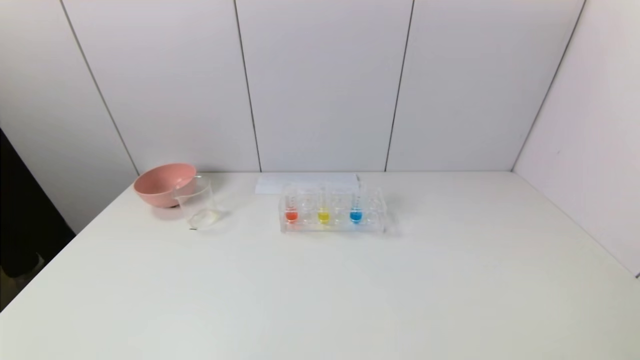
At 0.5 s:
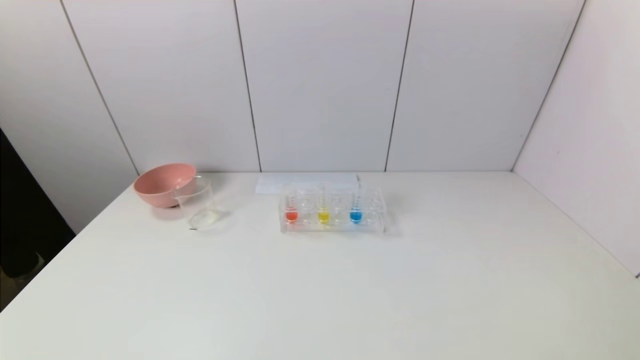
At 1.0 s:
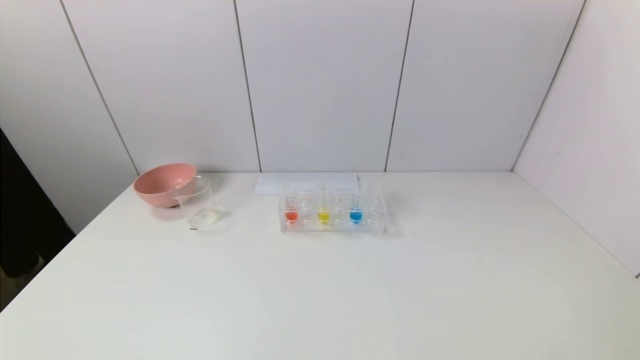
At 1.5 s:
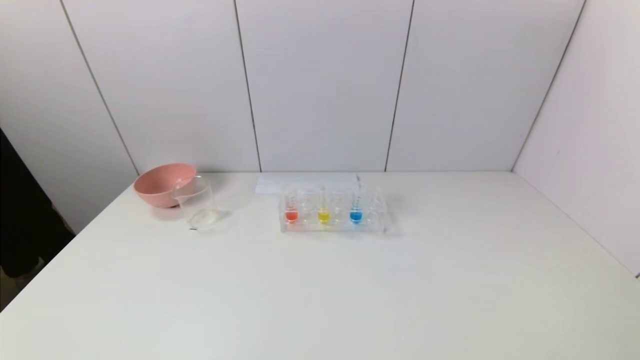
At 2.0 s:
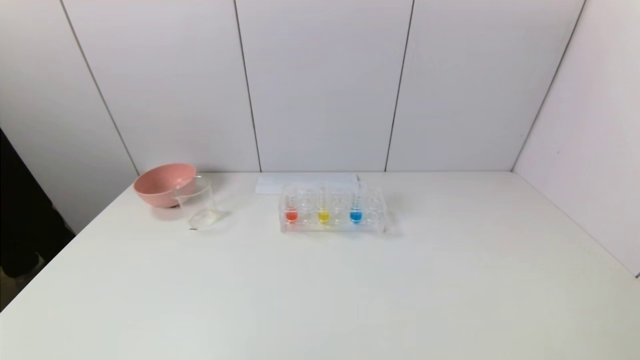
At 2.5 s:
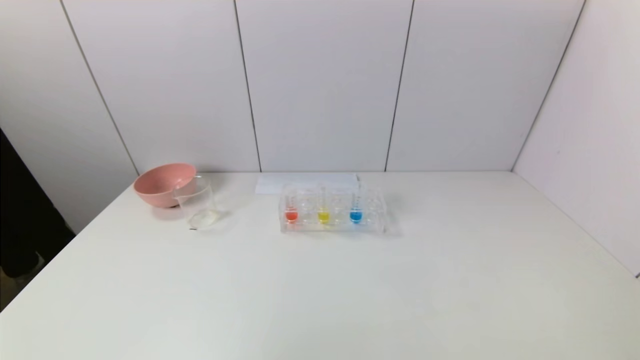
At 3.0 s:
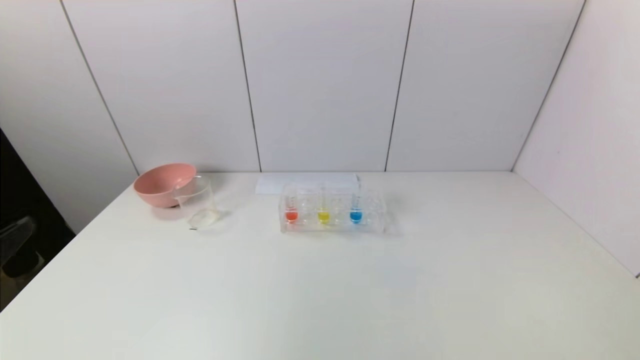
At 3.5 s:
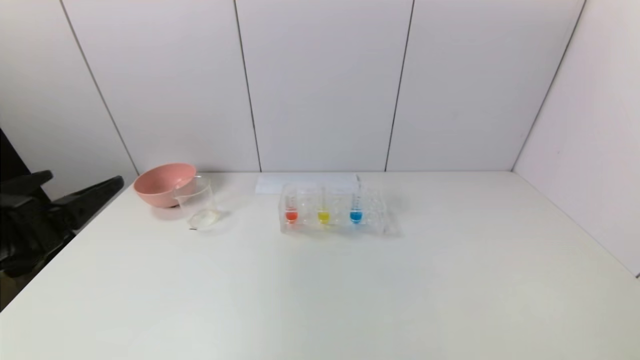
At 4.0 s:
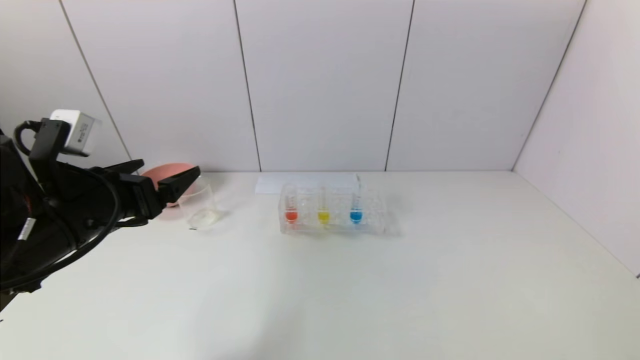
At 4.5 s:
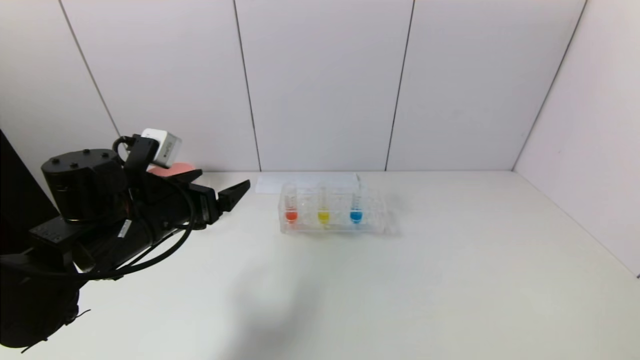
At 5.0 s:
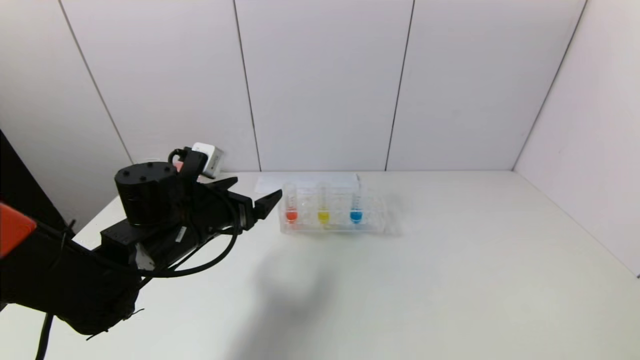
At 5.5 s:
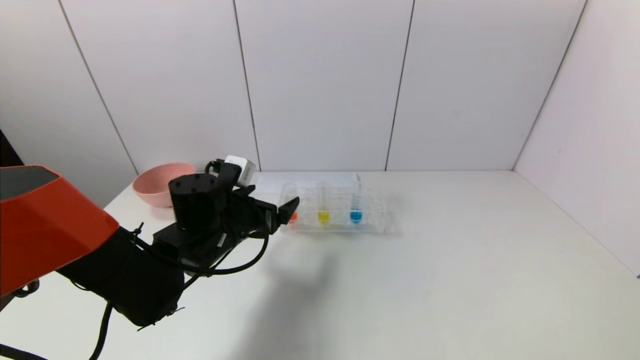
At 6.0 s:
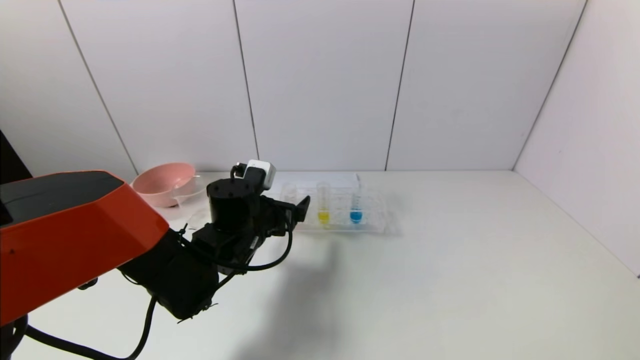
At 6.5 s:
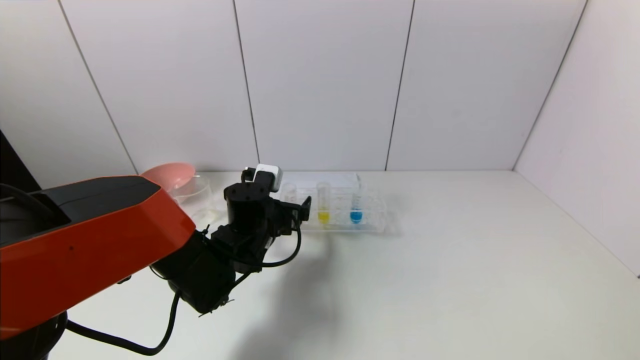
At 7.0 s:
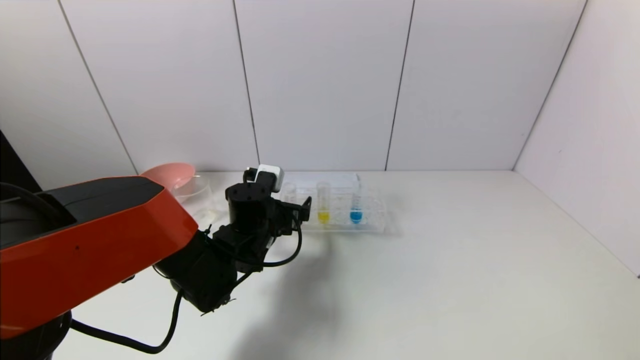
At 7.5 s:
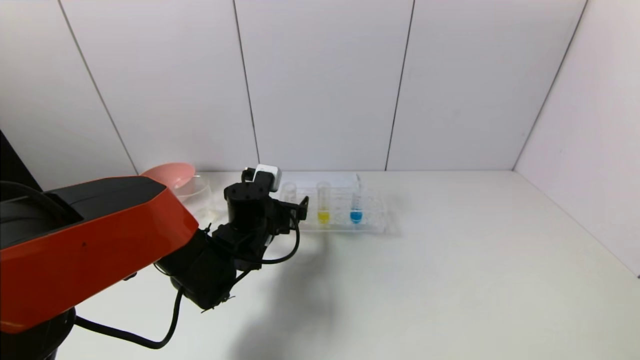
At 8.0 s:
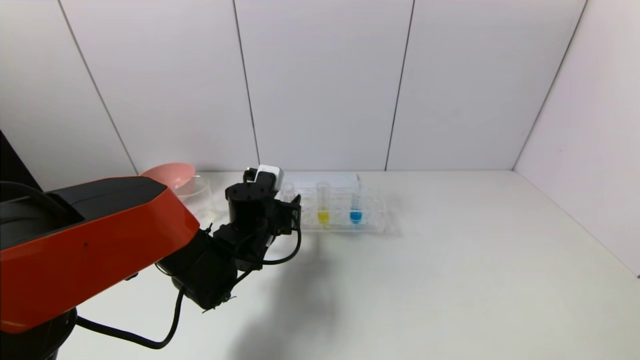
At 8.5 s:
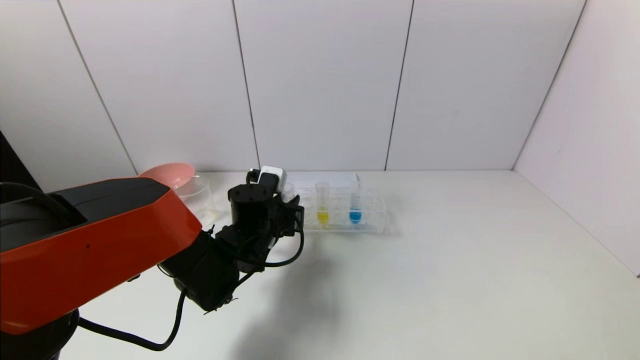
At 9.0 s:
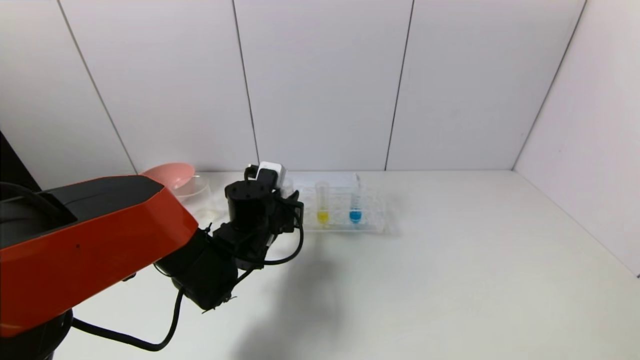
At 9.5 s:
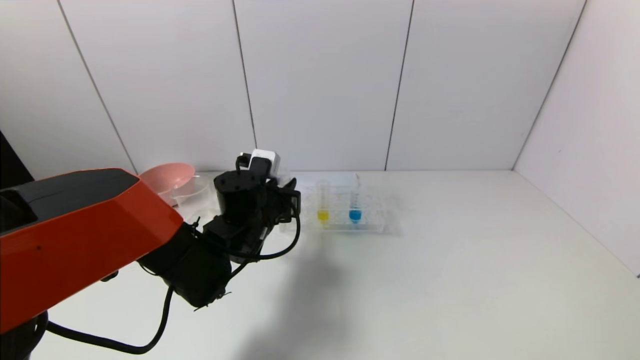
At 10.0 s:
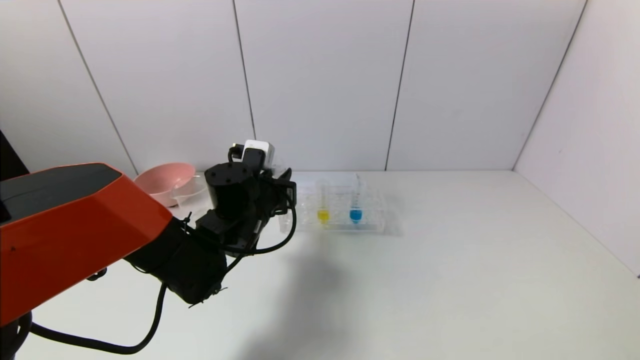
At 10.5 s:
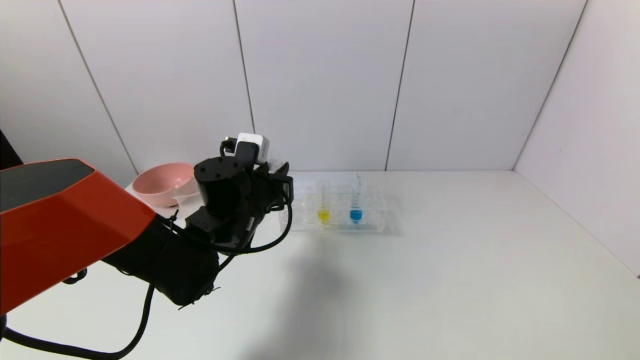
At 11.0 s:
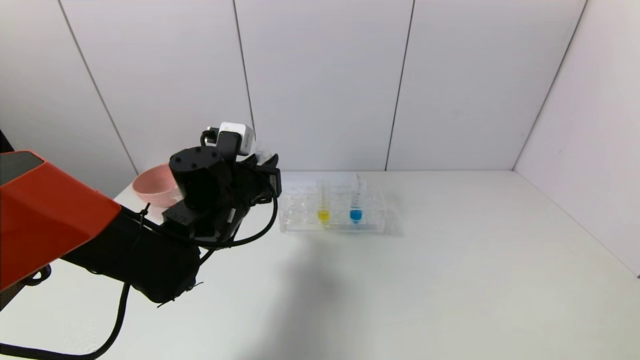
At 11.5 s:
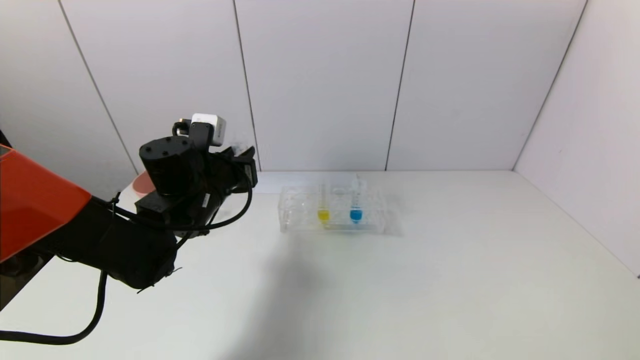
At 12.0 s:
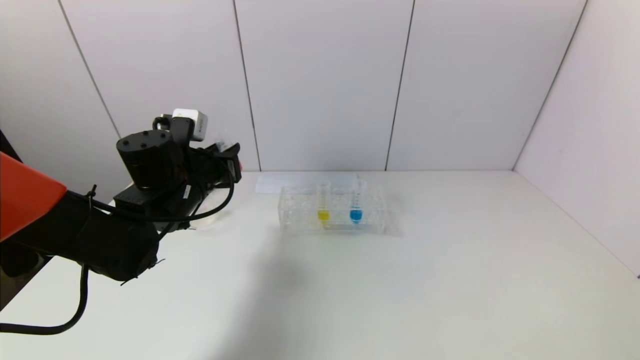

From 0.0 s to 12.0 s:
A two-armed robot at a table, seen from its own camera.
Task of the whole recording: pick up the test tube with yellow pigment and the test tube with red pigment by grippers and pour them into the beaker.
Step, from 0.0 s to 8.5 s: Grasp the red reagent with the left gripper.
From 2.0 s to 4.0 s: The left gripper goes about 25 cm forward.
From 4.0 s to 6.0 s: The left gripper heads to the right, downward and forward, covering some 20 cm.
From 6.0 s to 8.0 s: The left gripper closes.
From 8.0 s to 10.0 s: The left gripper shifts by some 5 cm.
From 10.0 s to 12.0 s: The left gripper is displaced to the left by about 10 cm.

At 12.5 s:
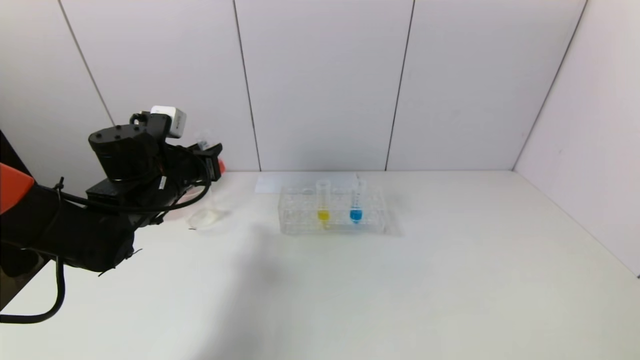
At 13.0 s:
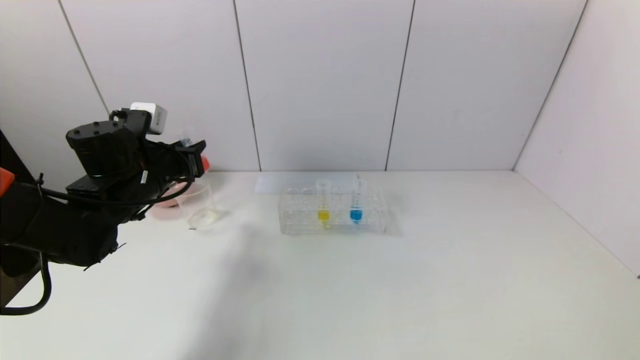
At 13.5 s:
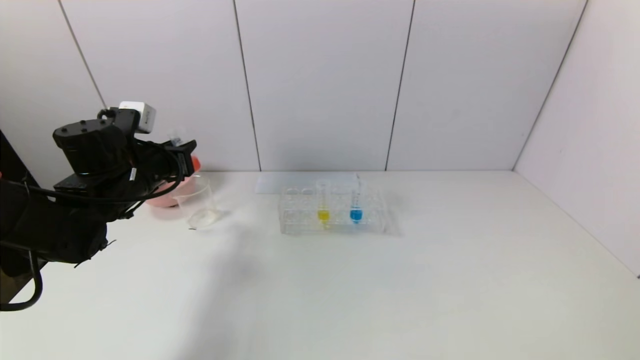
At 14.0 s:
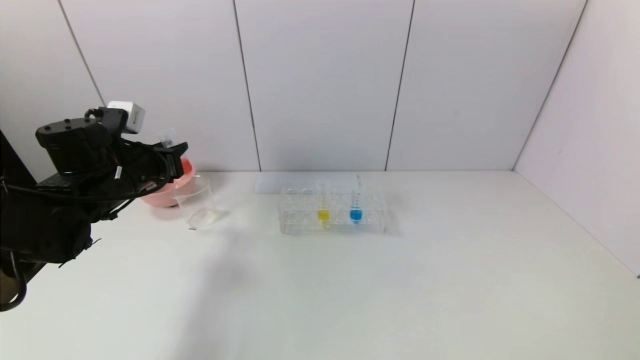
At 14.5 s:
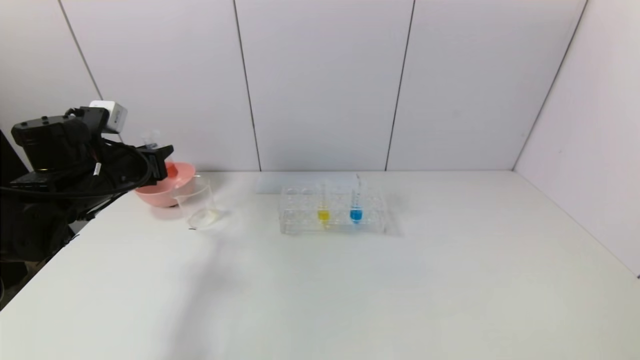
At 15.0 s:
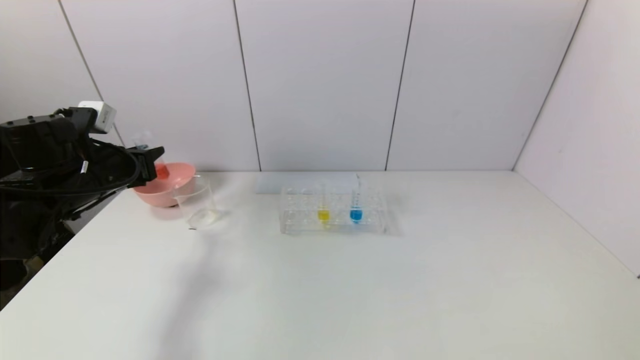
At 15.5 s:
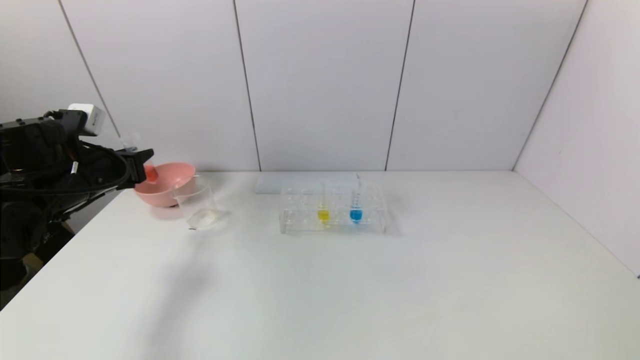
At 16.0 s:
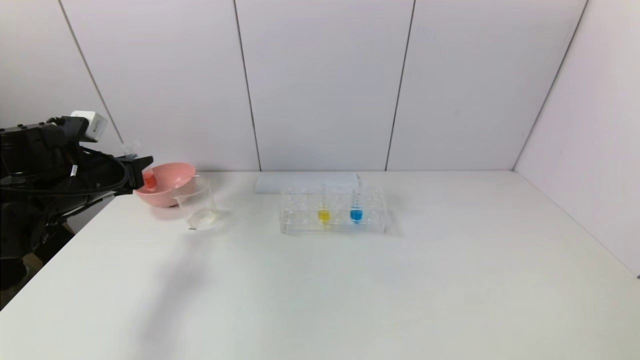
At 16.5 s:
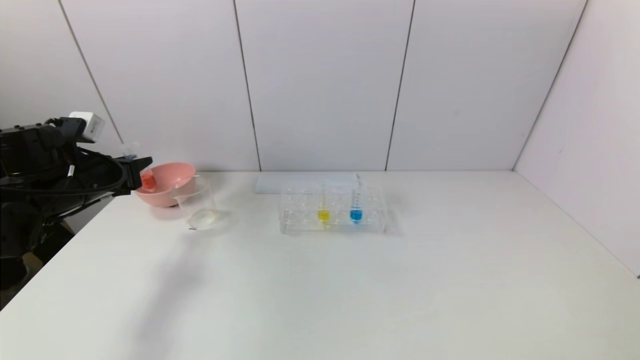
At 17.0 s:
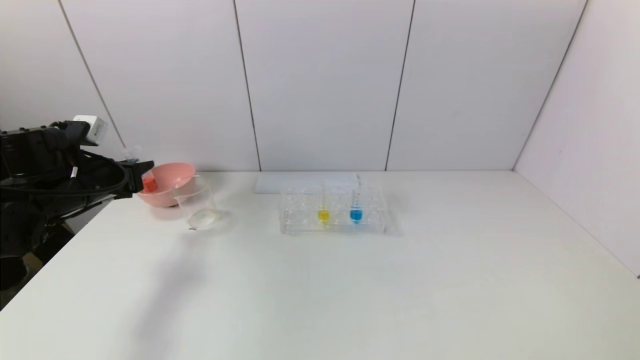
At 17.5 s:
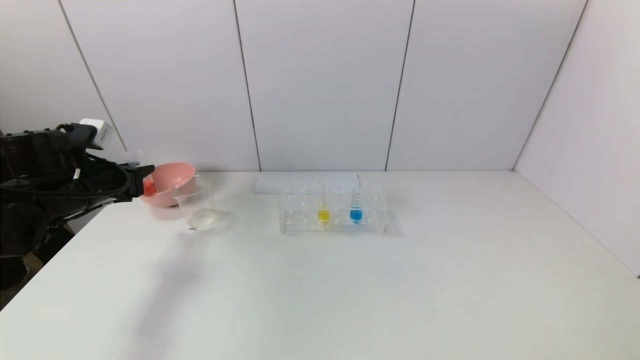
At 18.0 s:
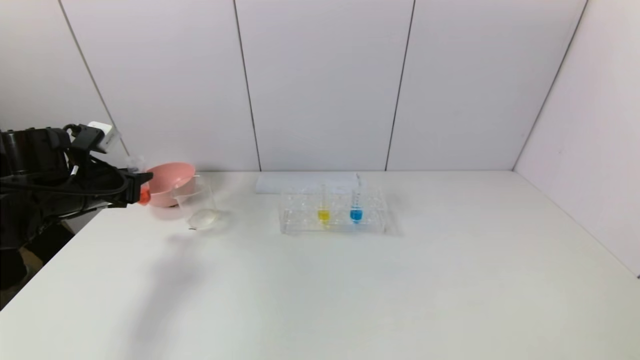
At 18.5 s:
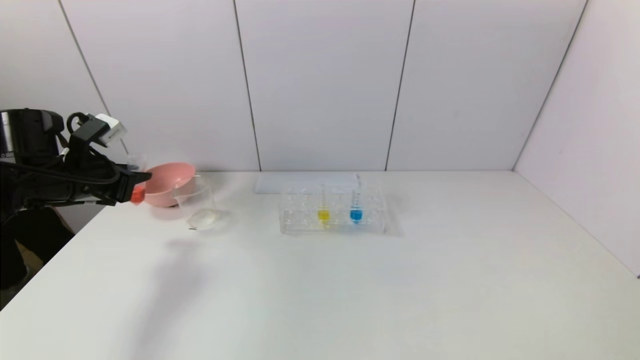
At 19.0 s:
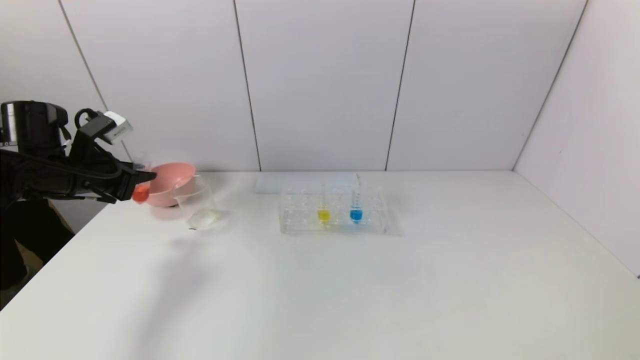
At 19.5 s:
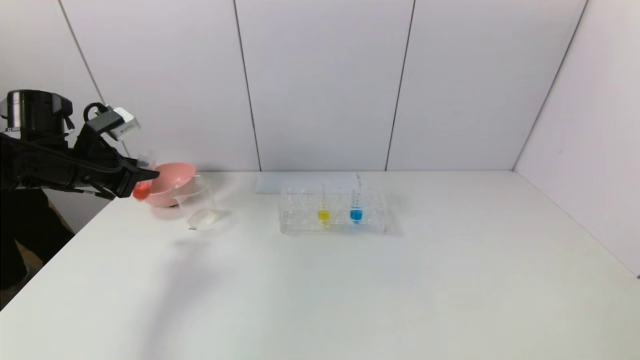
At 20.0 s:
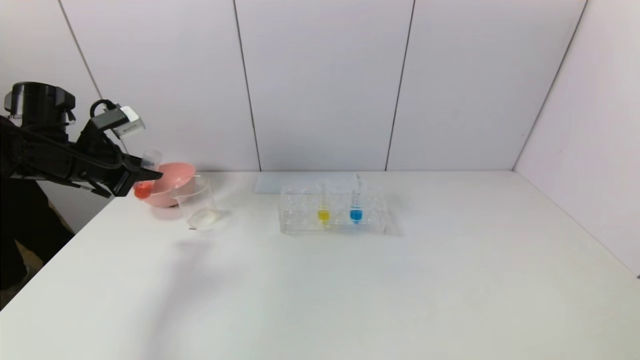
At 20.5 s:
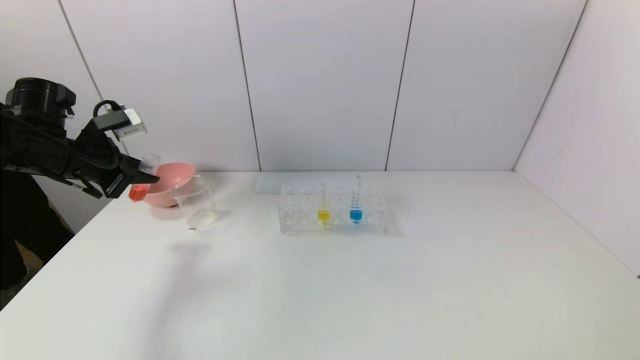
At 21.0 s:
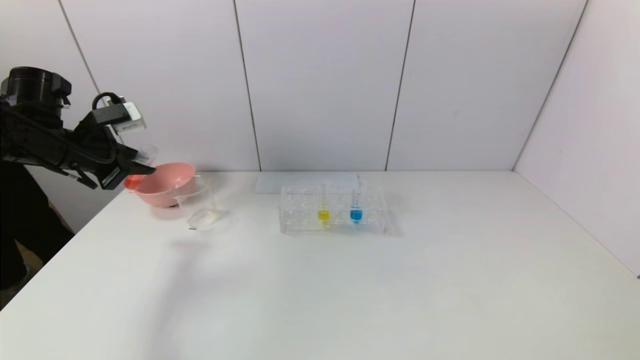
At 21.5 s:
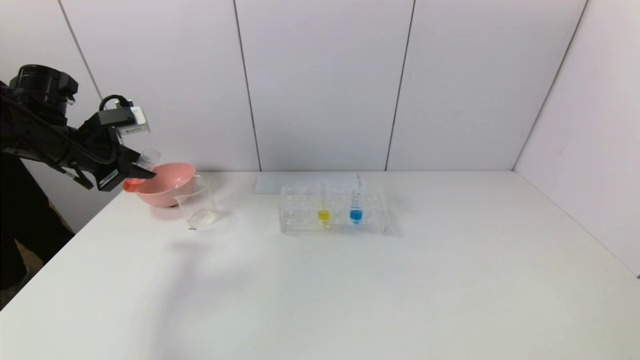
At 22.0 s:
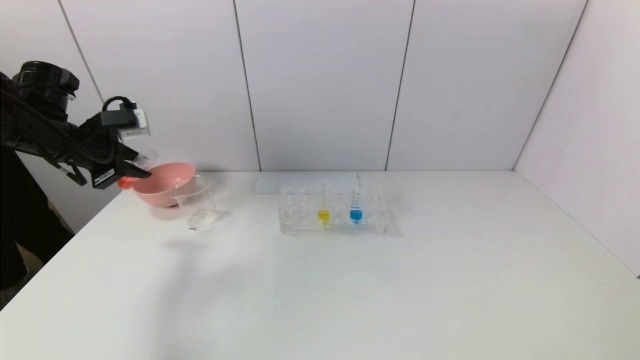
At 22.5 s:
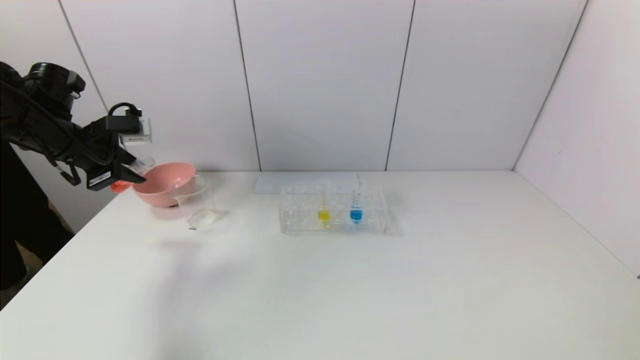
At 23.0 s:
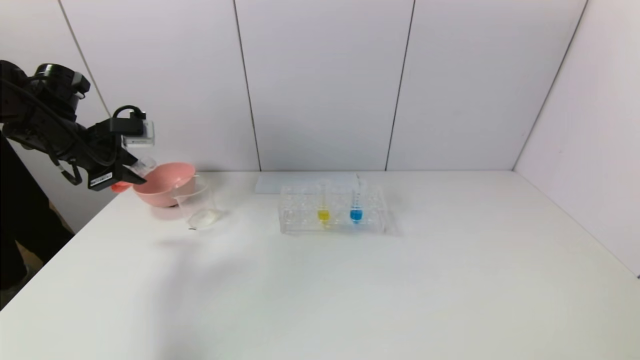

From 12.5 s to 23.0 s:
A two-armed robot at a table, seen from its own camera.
Task of the whole recording: pick up the test tube with yellow pigment and the test tube with red pigment by grippers and pour them into the beaker.
From 12.5 s to 14.5 s: The left gripper is displaced to the left by some 10 cm.
From 14.5 s to 16.5 s: The left gripper shifts by approximately 5 cm.
